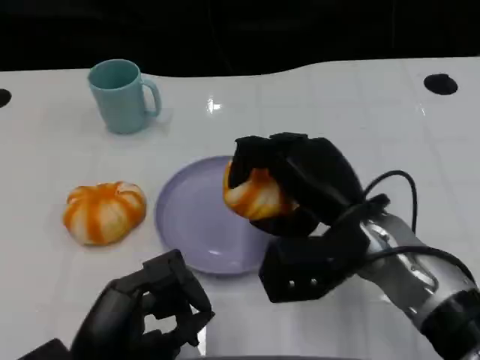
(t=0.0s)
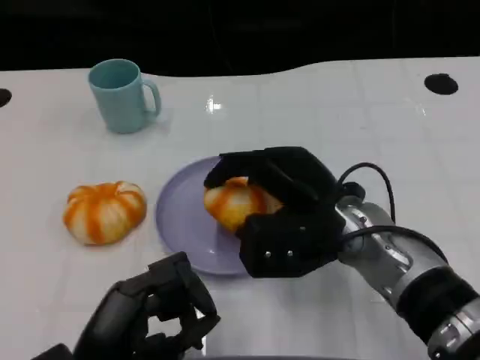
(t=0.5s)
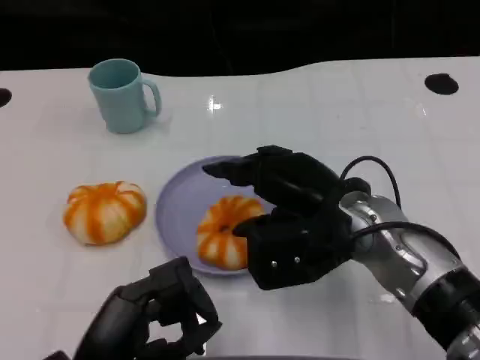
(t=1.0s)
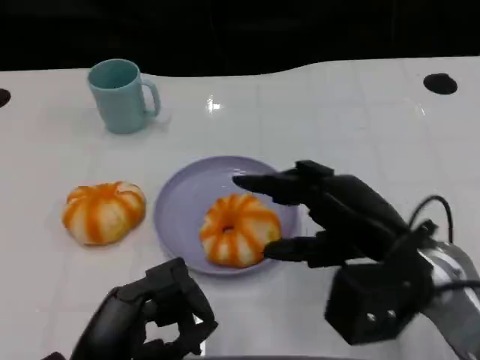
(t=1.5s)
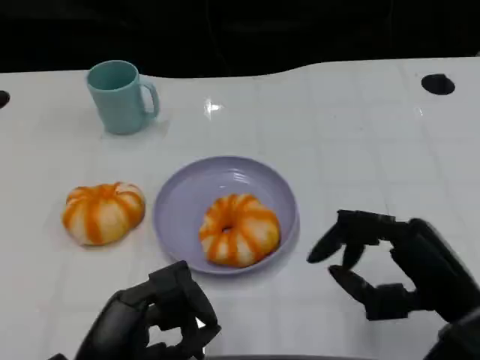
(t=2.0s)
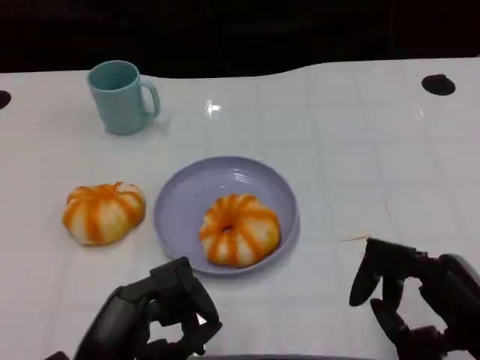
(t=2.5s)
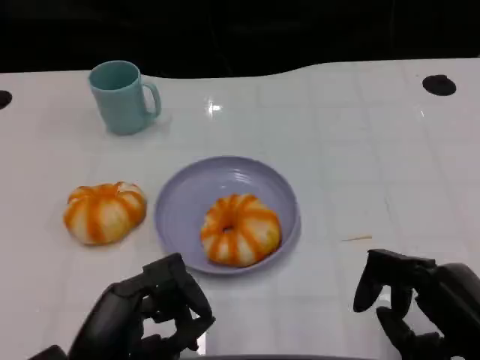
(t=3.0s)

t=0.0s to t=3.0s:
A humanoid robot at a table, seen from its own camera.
Task of the whole recording: Grasp the bread from the table and place it into the plate.
t=0.0s to t=1.5s: The right hand heads to the right, covering some 5 cm.
t=1.5s to t=3.0s: The right hand is displaced backward and to the right by some 10 cm.
